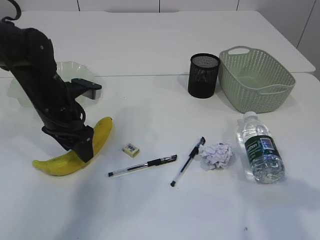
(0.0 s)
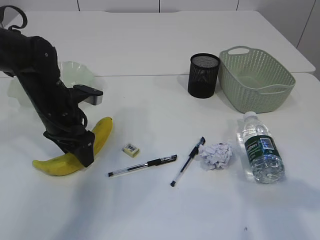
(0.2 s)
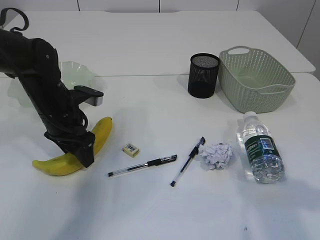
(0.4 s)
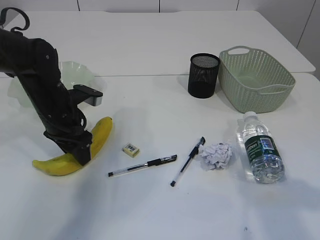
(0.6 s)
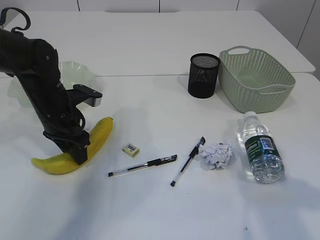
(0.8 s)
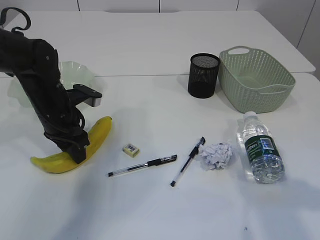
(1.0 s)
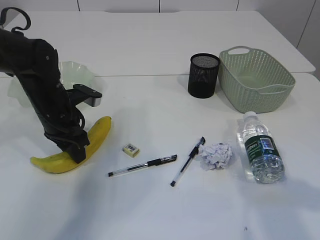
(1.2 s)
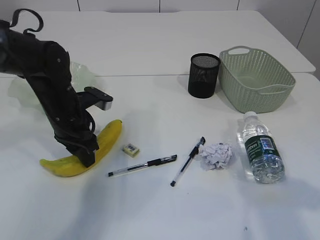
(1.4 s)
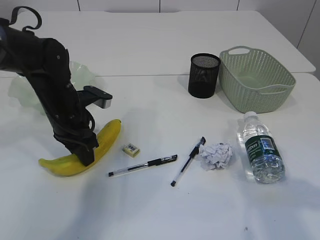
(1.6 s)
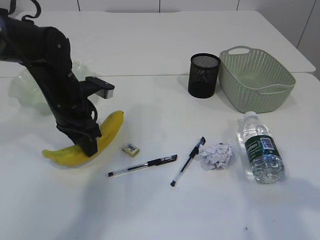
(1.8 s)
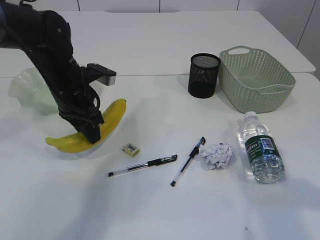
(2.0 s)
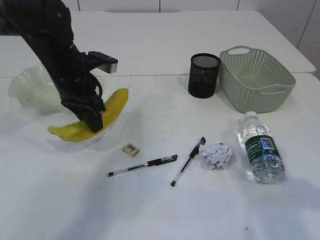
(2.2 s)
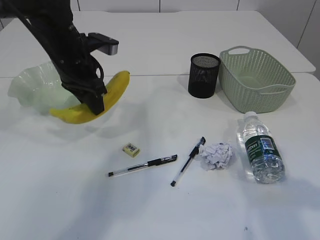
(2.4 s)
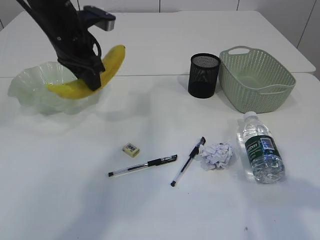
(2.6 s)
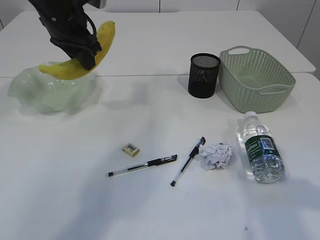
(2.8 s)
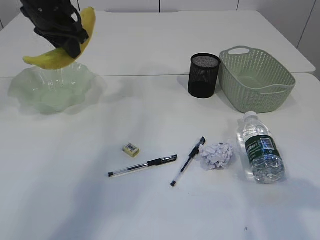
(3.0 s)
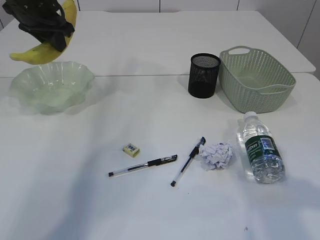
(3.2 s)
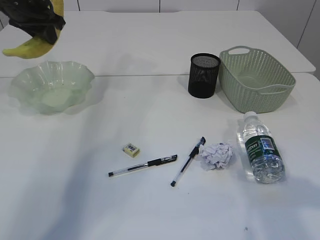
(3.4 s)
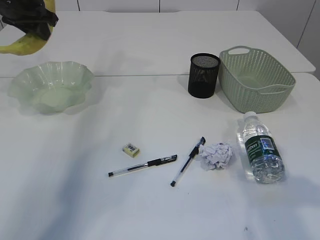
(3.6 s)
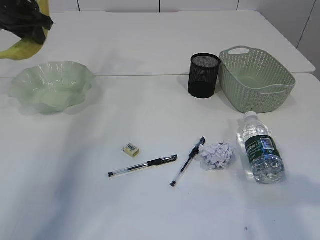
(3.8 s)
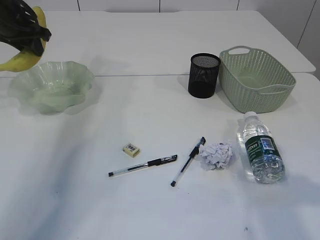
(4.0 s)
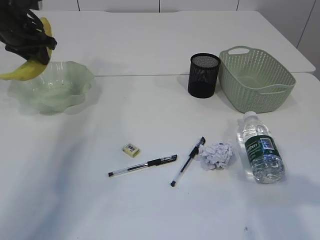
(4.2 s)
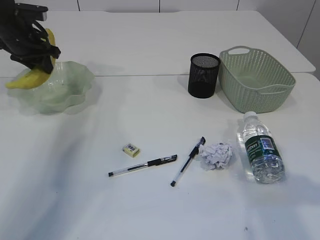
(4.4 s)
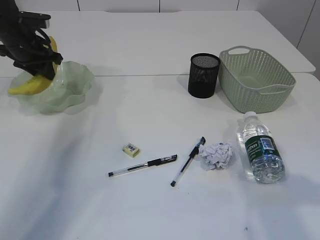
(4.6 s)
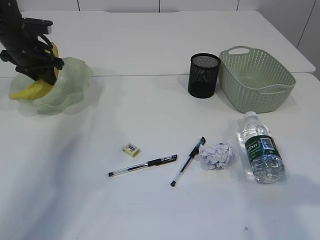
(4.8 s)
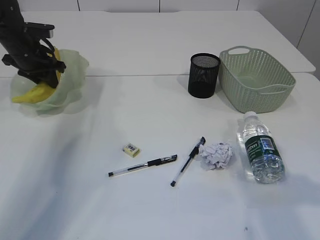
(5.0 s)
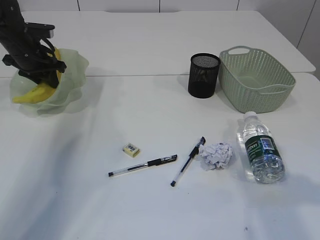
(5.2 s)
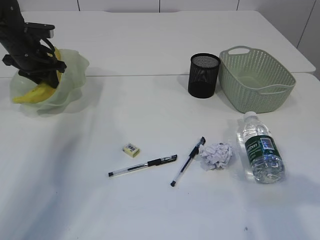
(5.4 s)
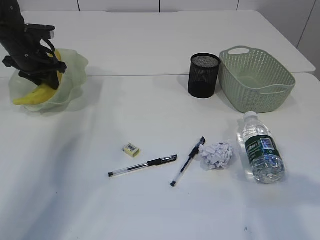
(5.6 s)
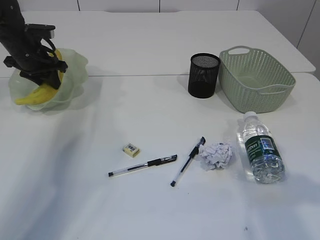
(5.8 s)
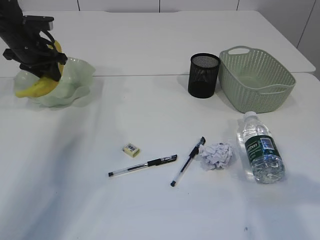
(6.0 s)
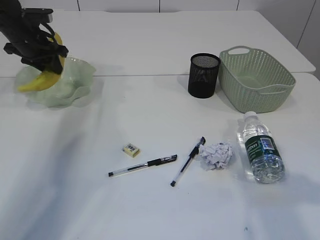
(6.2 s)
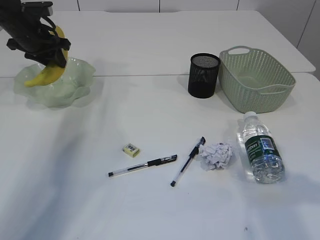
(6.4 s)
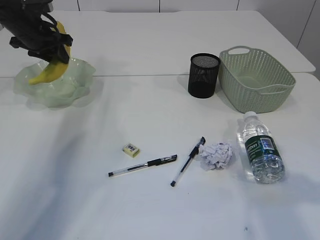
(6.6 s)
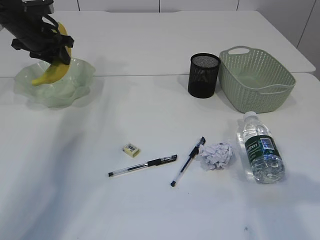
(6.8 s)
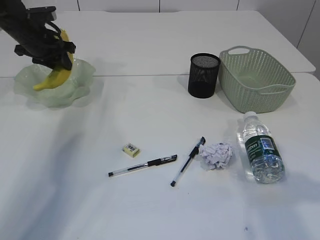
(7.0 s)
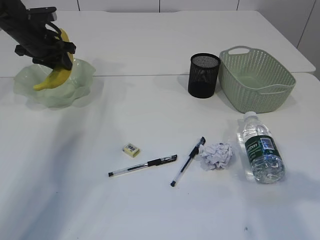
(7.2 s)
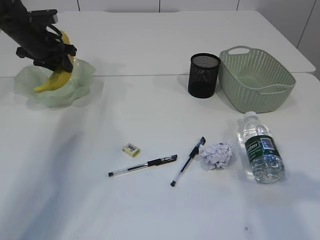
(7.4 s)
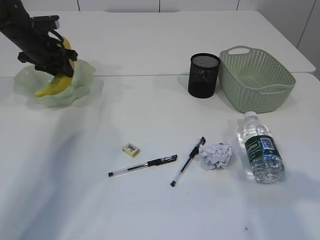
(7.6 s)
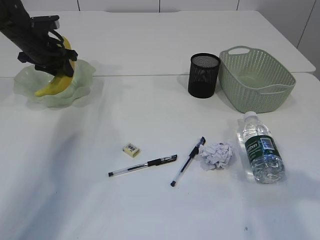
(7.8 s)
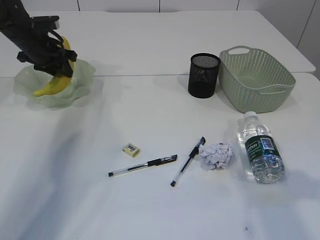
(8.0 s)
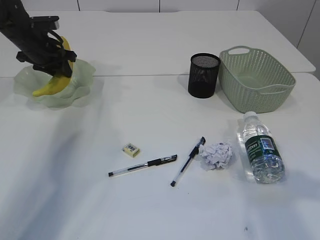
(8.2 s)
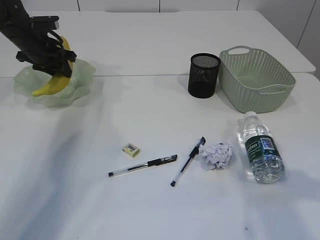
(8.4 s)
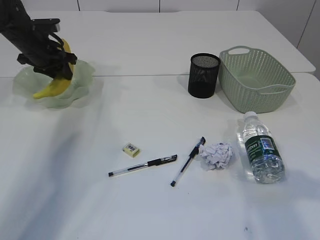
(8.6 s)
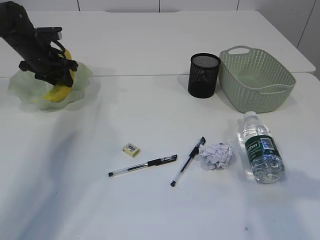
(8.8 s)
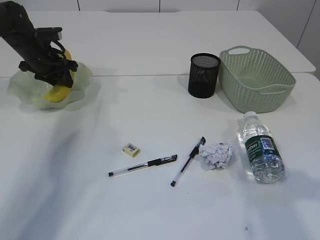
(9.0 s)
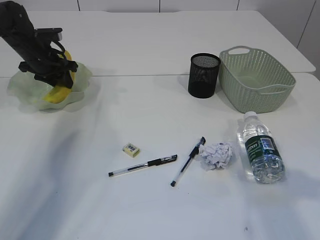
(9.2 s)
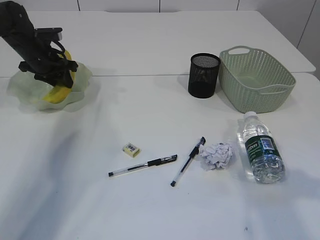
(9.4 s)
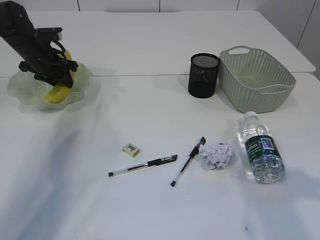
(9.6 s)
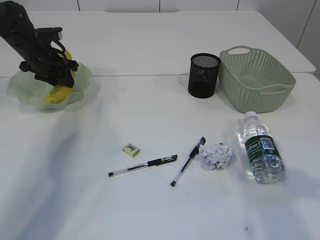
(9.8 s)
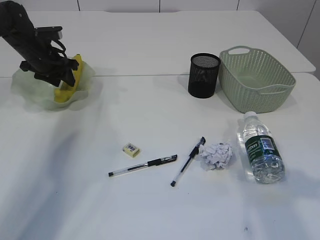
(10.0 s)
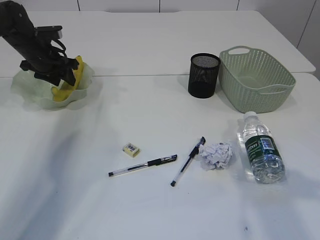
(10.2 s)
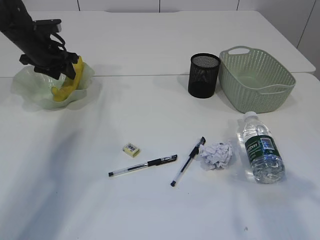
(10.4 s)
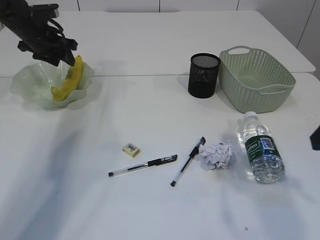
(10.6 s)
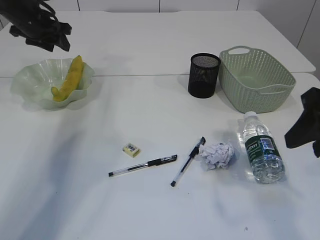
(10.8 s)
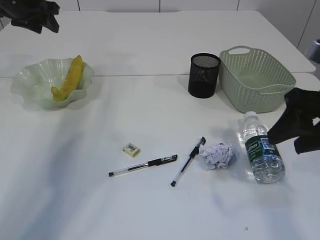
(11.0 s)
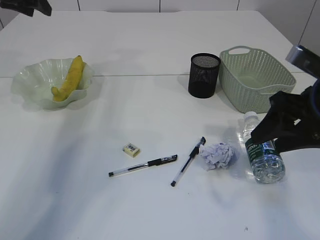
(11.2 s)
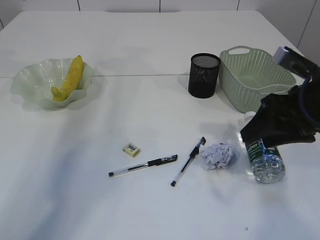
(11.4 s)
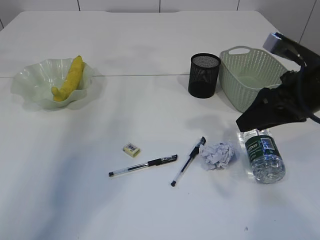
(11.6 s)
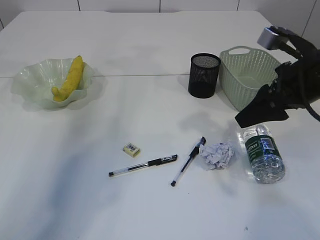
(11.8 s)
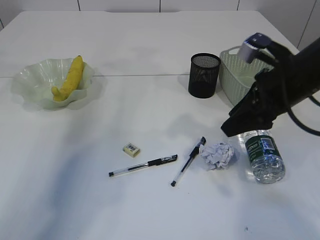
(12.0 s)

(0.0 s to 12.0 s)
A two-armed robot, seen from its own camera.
Step, 2.2 s - 10.6 s: Place the banana in the plate.
0.0 s - 1.6 s: The left gripper closes its fingers.
1.6 s - 3.0 s: The left gripper is displaced upward and forward by some 20 cm.
3.0 s - 4.4 s: The left gripper moves to the left, downward and forward, about 15 cm.
4.4 s - 7.6 s: The grippers make only small movements.
7.6 s - 10.4 s: The grippers move only a little.
10.4 s - 12.0 s: The left gripper heads upward, covering some 25 cm; the right gripper is displaced forward, to the left and downward by approximately 15 cm.

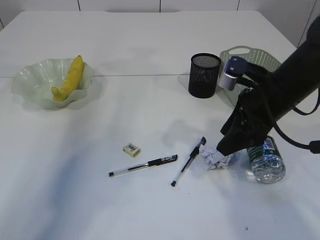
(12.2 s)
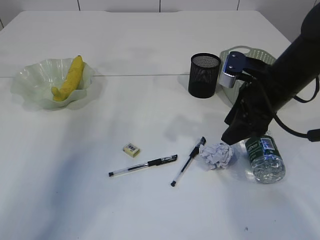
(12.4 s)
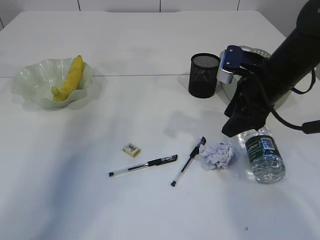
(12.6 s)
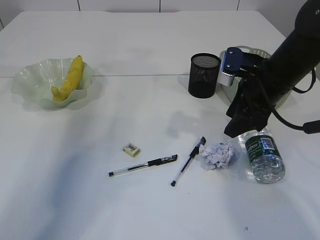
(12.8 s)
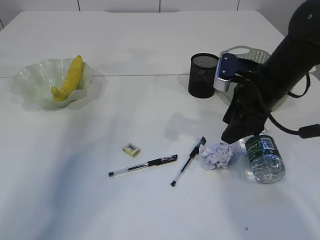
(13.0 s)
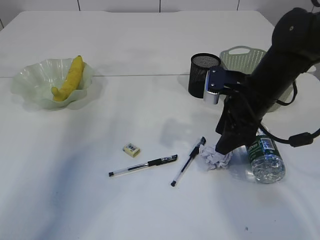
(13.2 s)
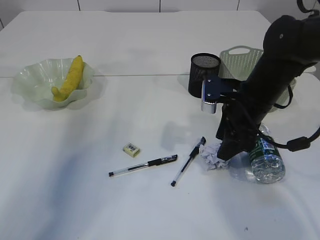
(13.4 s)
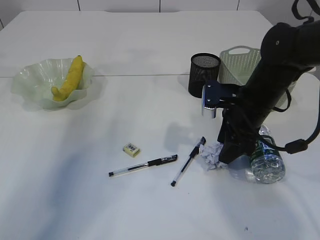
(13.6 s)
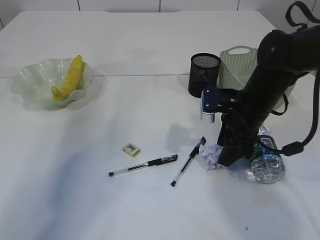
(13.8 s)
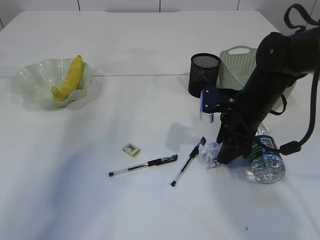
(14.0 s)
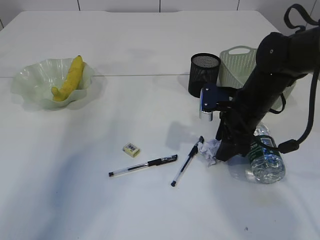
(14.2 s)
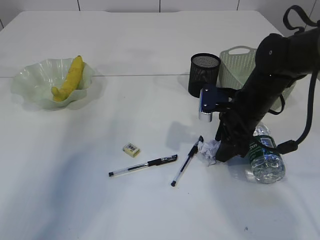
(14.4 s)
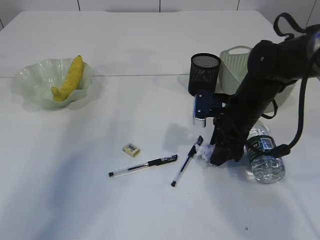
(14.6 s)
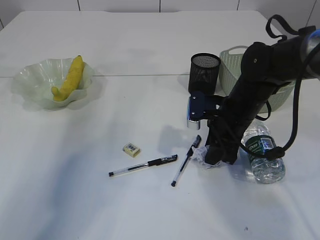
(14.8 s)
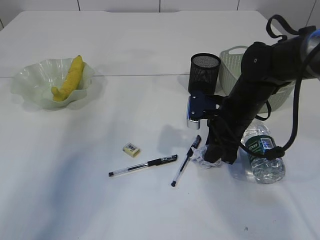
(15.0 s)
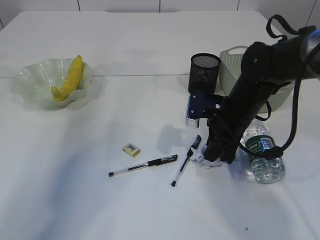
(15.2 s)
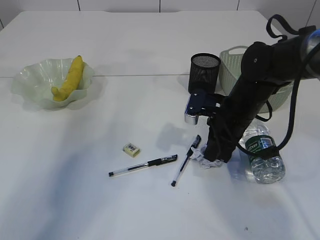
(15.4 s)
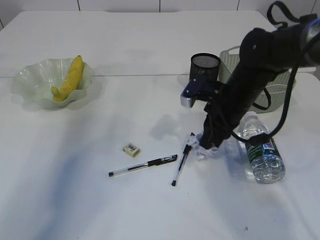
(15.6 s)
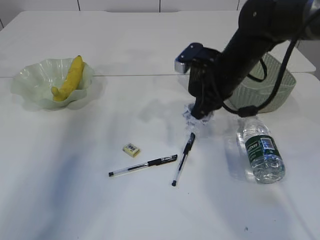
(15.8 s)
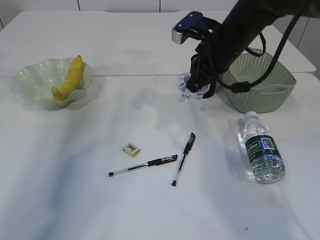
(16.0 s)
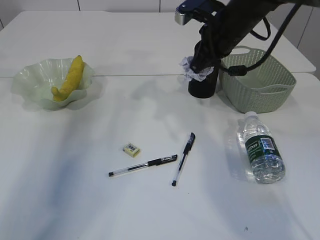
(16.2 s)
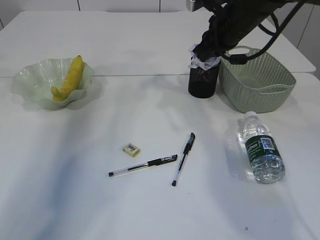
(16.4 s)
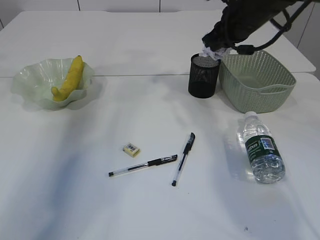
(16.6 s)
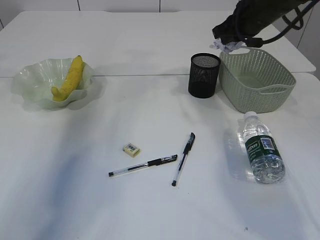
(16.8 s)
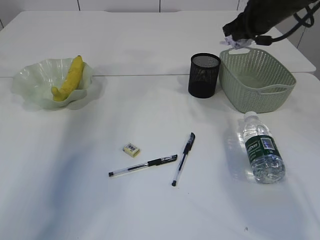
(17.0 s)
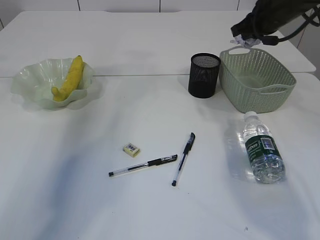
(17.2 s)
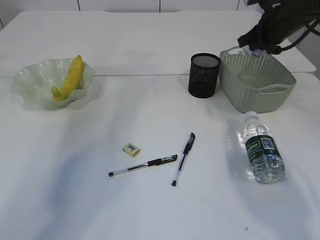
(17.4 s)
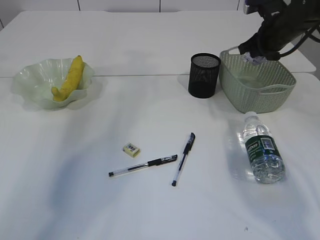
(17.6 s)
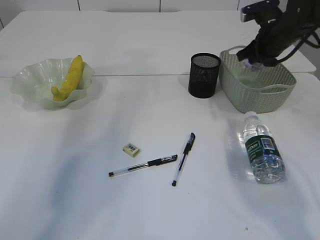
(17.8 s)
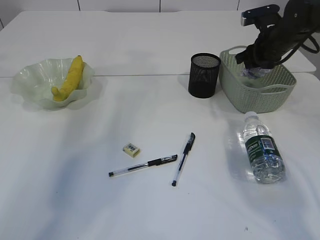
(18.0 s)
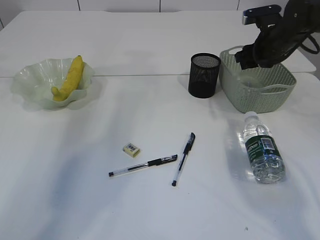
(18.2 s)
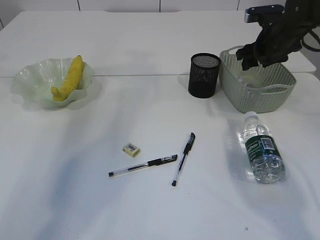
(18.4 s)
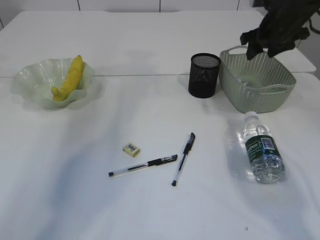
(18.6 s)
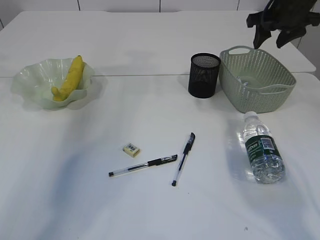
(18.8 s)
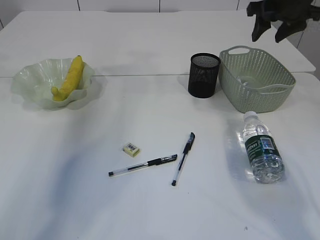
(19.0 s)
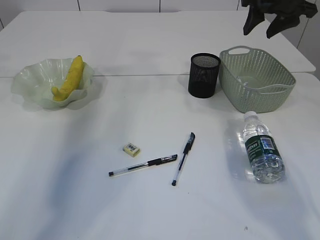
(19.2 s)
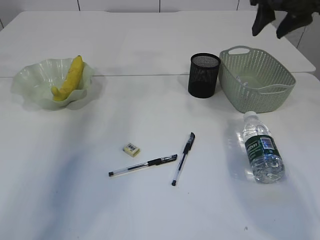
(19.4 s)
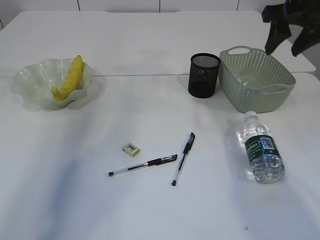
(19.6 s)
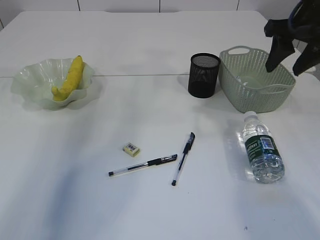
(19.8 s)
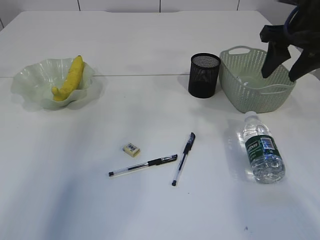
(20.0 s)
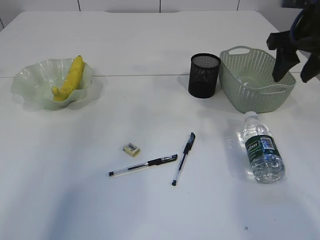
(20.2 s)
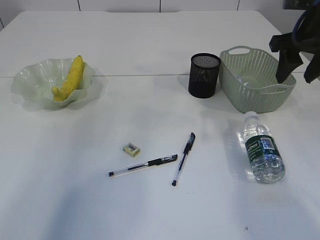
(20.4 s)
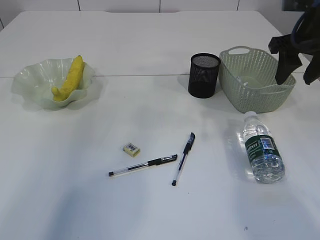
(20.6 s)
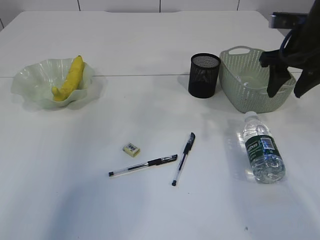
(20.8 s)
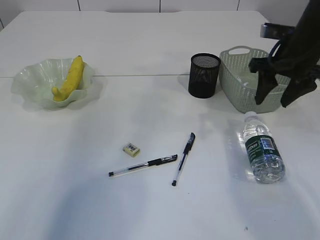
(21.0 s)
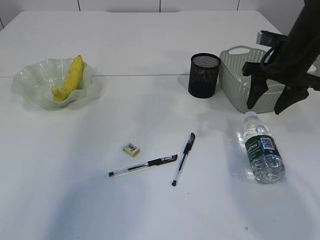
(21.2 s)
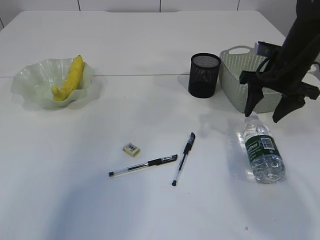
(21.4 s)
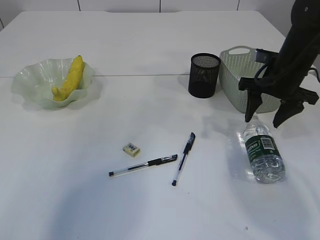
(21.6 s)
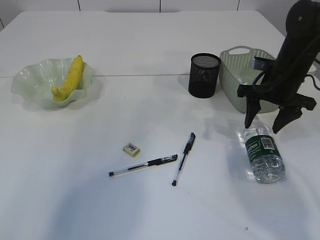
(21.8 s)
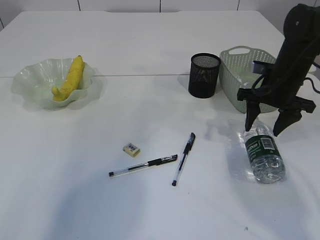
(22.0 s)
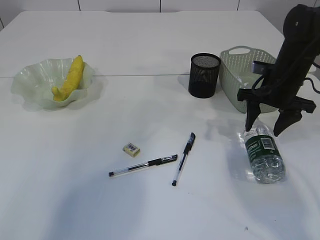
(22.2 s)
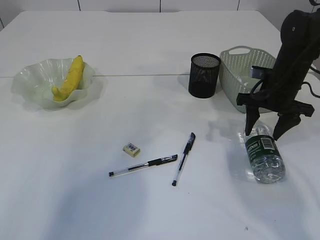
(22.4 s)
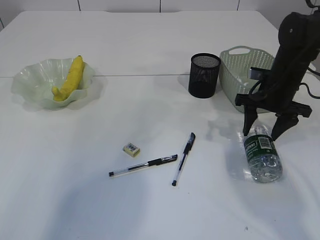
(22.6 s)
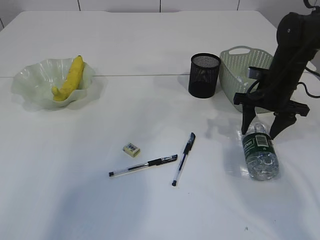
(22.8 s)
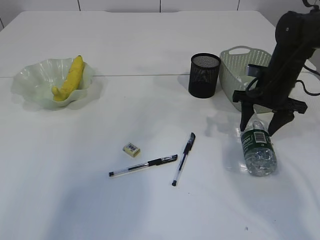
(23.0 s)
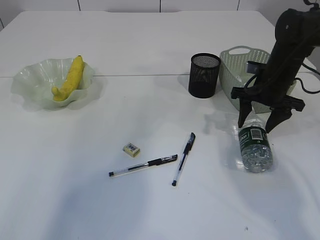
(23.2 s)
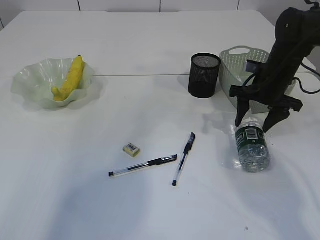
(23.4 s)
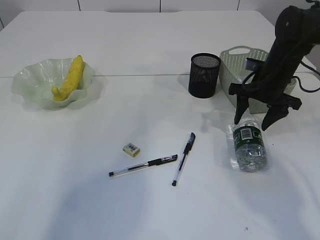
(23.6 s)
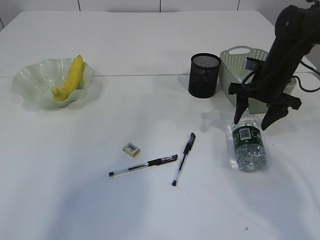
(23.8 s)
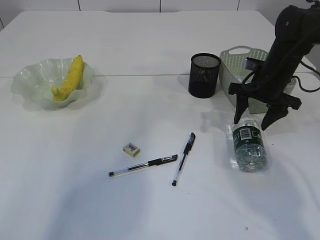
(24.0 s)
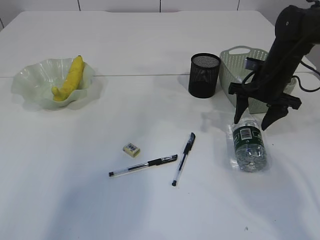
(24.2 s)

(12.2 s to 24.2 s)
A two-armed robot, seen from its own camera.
Step, 12.2 s - 15.6 s: Pick up the waste paper.
Step, 15.8 s - 18.4 s: Place the waste paper in the basket.
12.2 s - 13.8 s: The right gripper moves downward, roughly 5 cm.
13.8 s - 15.2 s: The right gripper closes up.
15.2 s - 16.6 s: The right gripper heads upward and forward, covering some 15 cm.
16.6 s - 18.2 s: The right gripper shifts approximately 10 cm to the right and downward, and opens its fingers.
18.2 s - 19.8 s: The right gripper travels backward and upward by some 15 cm.
19.8 s - 21.2 s: The right gripper heads downward, covering about 10 cm.
21.2 s - 22.6 s: The right gripper travels downward by approximately 10 cm.
22.6 s - 24.2 s: The grippers make only small movements.
